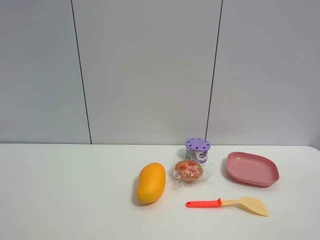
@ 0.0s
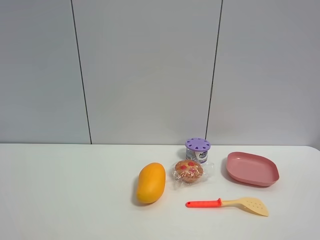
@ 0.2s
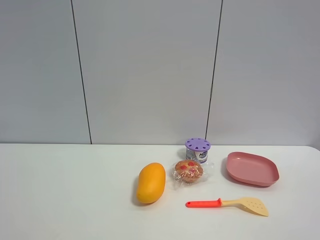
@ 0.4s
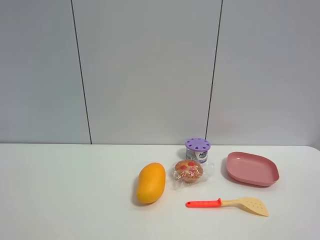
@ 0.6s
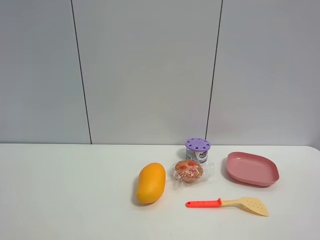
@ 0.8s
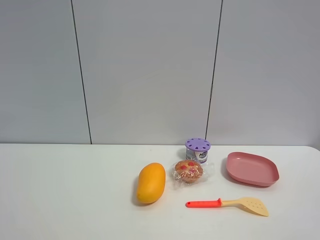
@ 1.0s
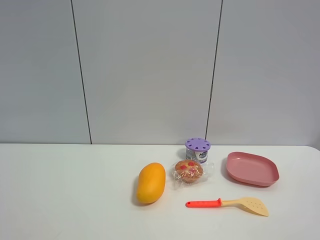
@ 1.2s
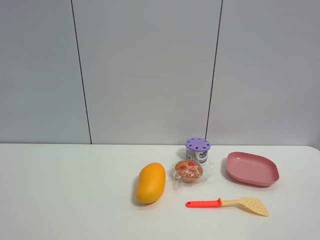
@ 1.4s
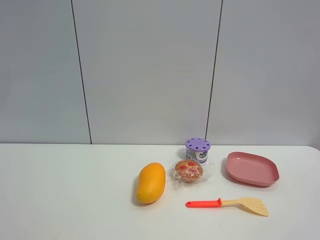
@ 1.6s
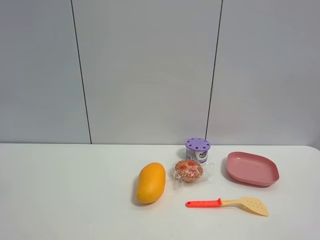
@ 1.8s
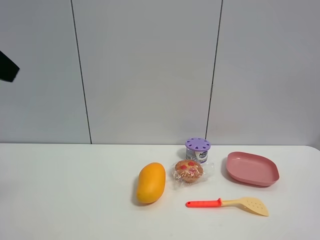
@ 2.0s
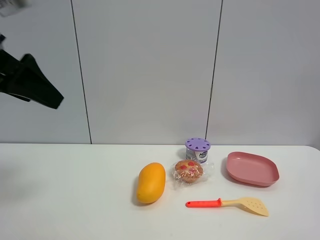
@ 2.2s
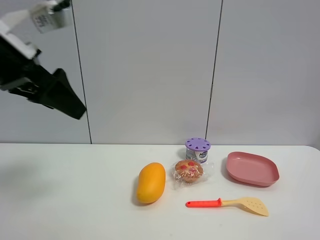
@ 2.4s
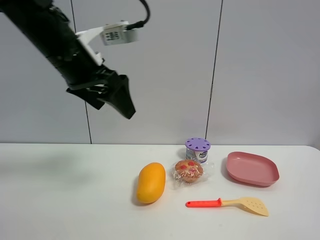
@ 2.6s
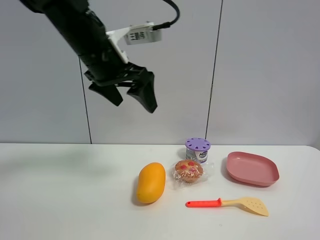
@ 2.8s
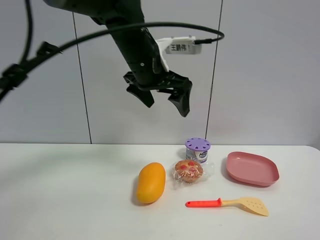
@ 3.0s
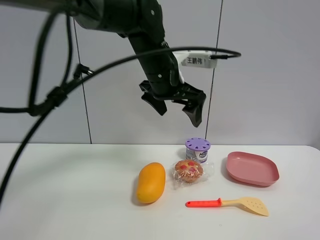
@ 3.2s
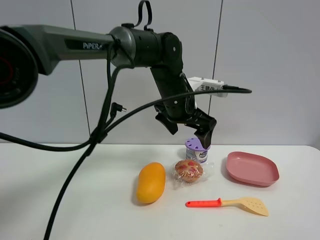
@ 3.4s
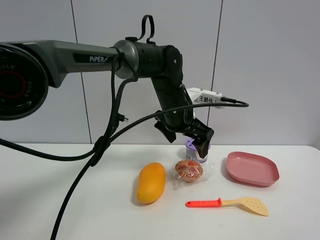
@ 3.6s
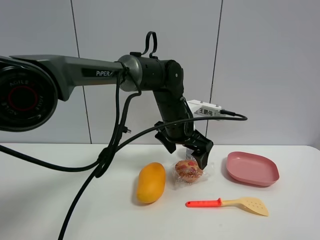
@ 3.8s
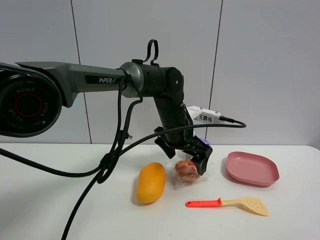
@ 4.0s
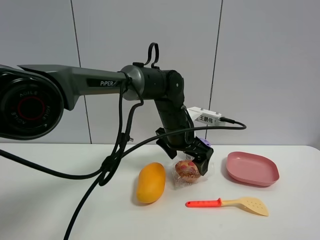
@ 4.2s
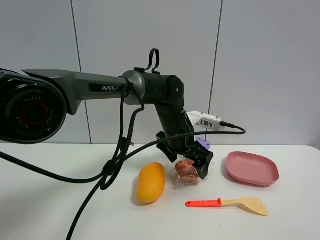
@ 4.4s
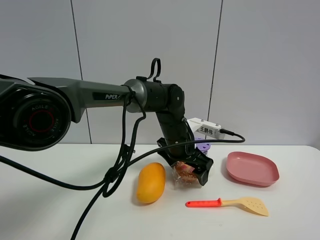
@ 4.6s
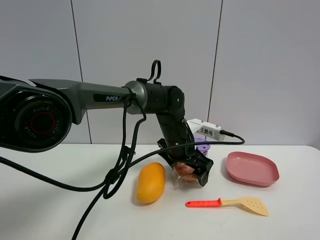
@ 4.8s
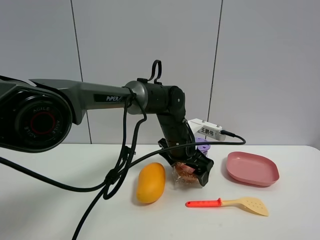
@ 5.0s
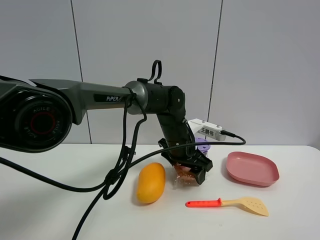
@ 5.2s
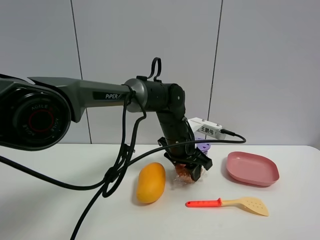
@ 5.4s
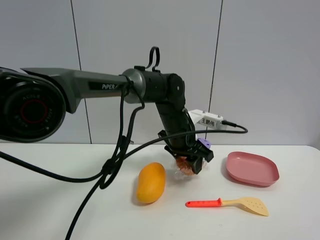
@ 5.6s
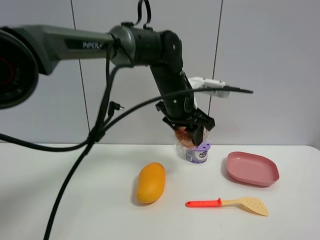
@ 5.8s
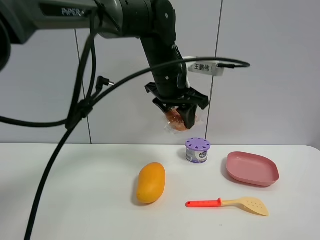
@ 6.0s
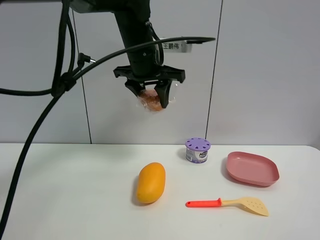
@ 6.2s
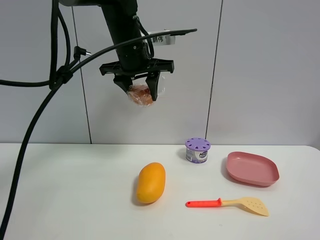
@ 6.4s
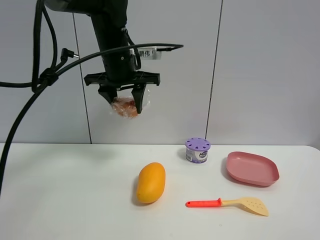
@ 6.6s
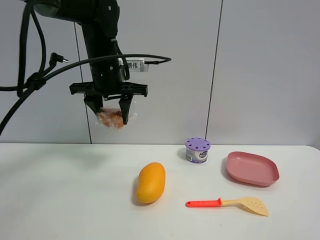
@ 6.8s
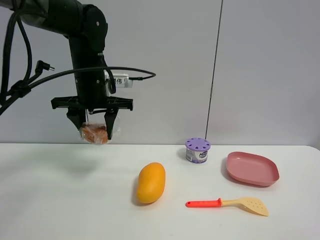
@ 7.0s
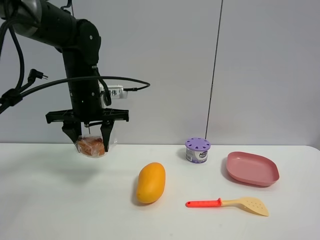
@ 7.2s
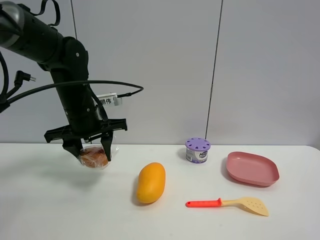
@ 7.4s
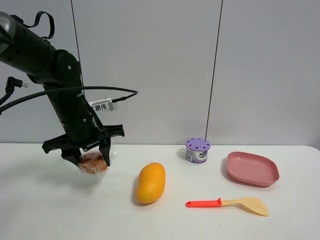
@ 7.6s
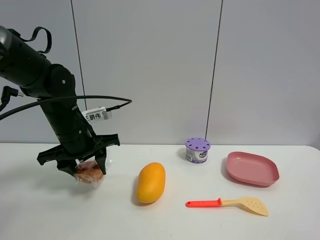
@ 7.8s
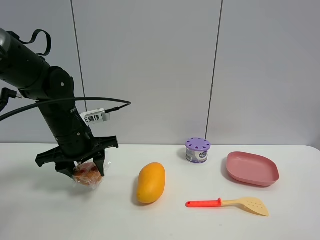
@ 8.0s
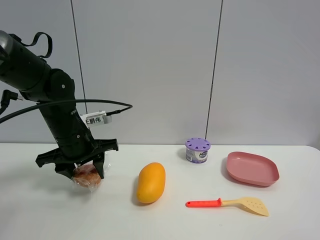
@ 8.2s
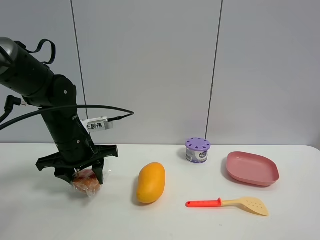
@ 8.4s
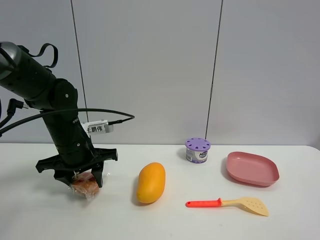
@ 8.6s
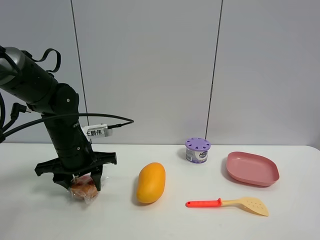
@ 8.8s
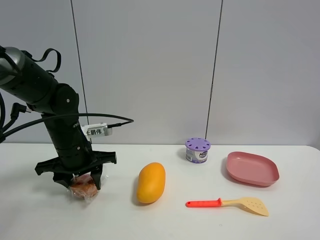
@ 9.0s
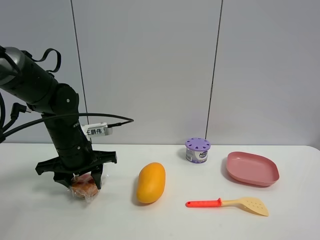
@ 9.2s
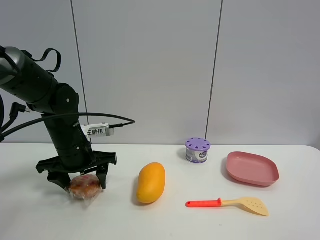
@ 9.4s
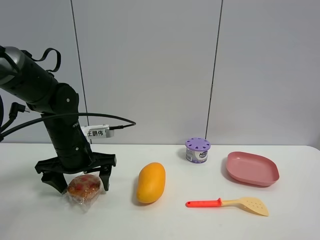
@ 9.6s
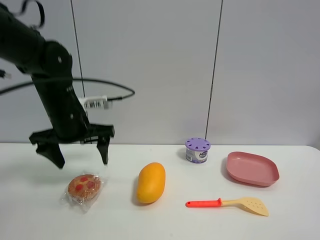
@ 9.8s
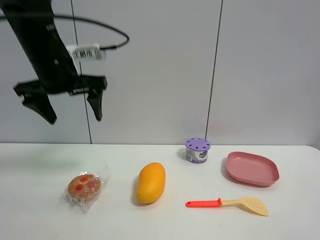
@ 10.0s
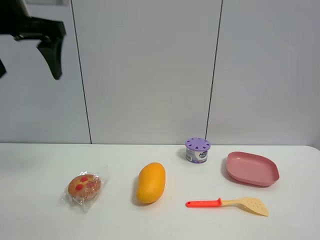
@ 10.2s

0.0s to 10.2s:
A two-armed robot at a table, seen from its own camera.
Task of the whole recording: the gripper move the object.
Step, 0.0s to 5.2s: Grasp the egg tart with the left gripper.
Step, 5.4s to 9.6s: Place the egg tart on the table with the left gripper.
1.4s to 3.0s: The left gripper goes some 40 cm forward and to the right.
3.0s to 4.4s: The left gripper travels downward and to the right by roughly 15 cm.
4.4s to 5.8s: The left gripper heads upward, covering some 10 cm, and closes up.
5.8s to 7.2s: The left gripper shifts about 15 cm to the left.
7.2s to 8.8s: The left gripper travels downward by about 10 cm.
8.8s to 10.2s: The left gripper goes some 25 cm upward, and opens.

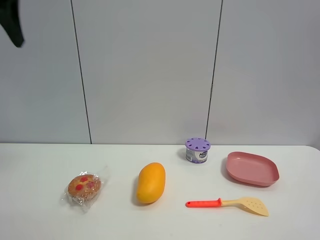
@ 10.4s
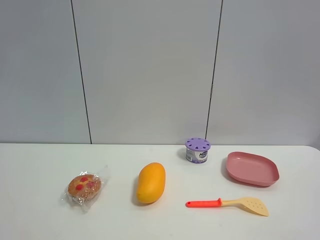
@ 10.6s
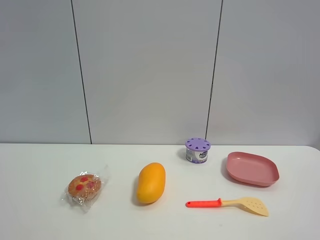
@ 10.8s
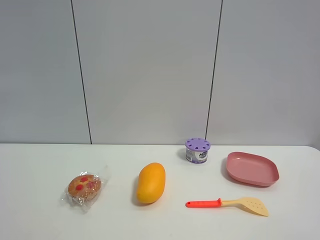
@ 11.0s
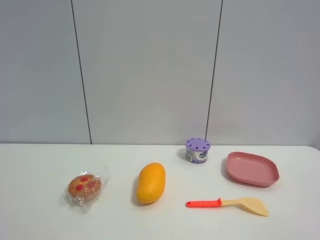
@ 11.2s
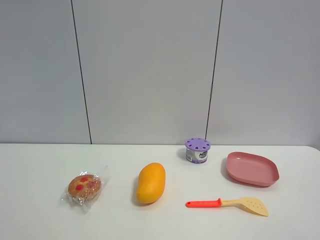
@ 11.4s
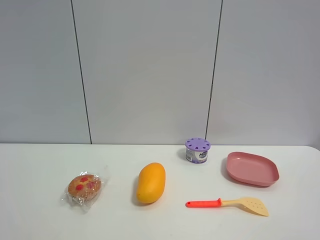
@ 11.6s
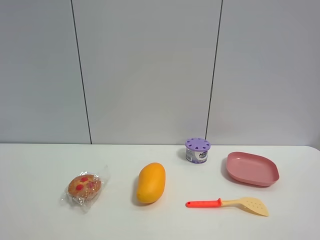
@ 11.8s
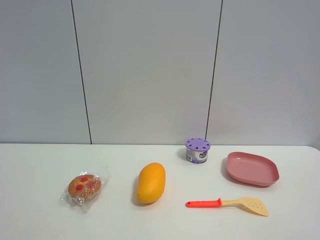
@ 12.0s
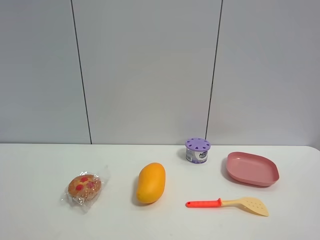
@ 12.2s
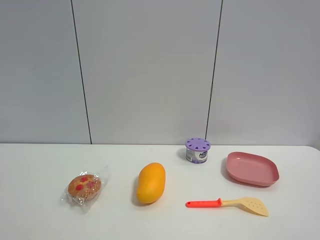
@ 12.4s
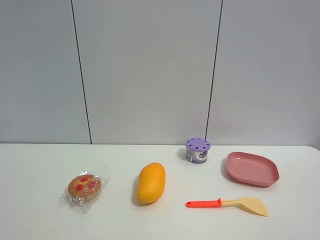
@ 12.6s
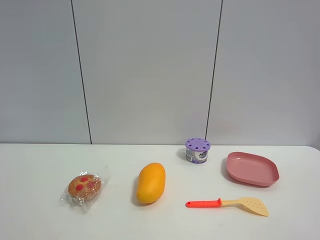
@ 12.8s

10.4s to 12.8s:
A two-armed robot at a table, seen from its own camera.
Task of the whole recording: the gripper move the object.
10.4s to 11.6s: The left gripper shifts about 30 cm backward.

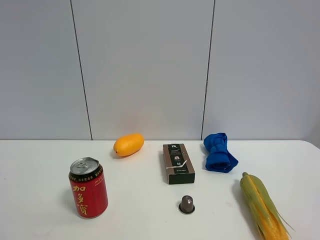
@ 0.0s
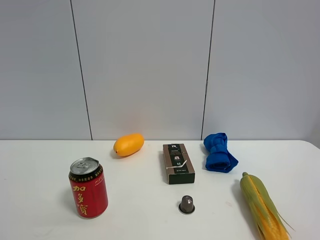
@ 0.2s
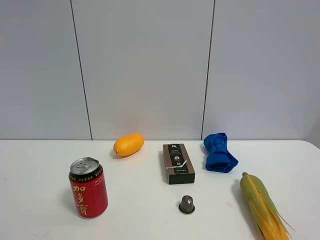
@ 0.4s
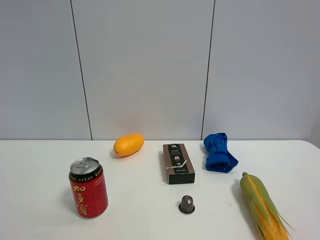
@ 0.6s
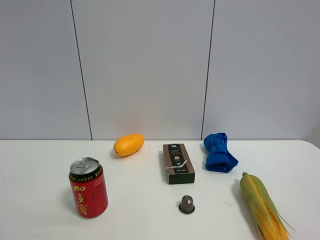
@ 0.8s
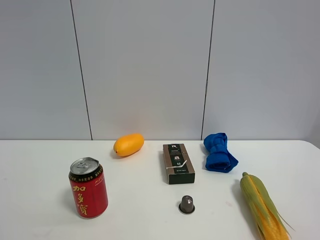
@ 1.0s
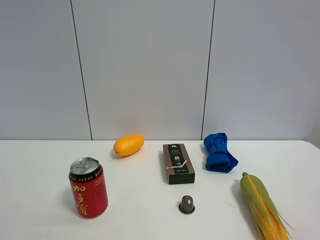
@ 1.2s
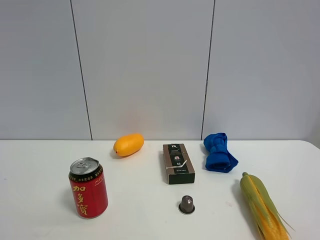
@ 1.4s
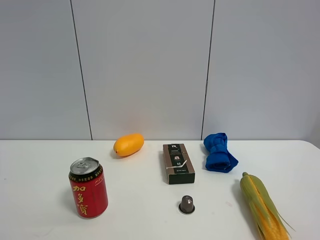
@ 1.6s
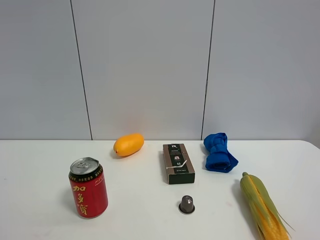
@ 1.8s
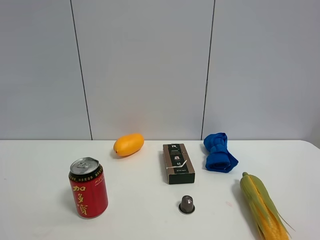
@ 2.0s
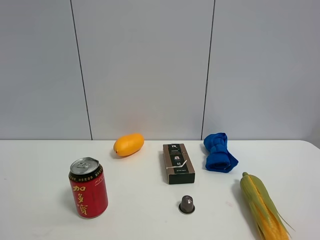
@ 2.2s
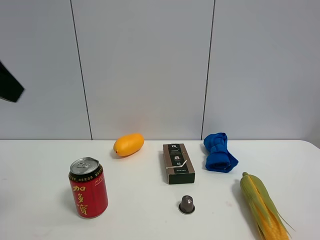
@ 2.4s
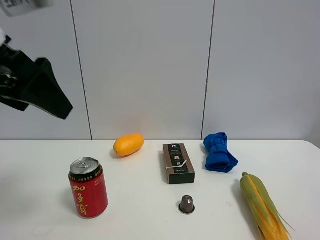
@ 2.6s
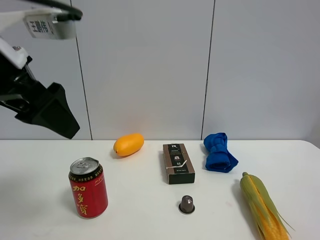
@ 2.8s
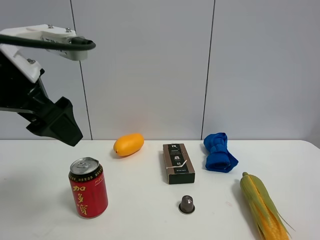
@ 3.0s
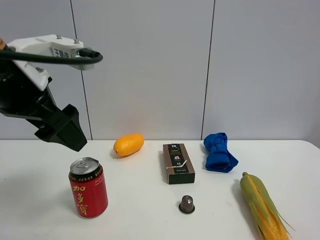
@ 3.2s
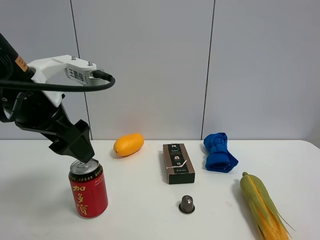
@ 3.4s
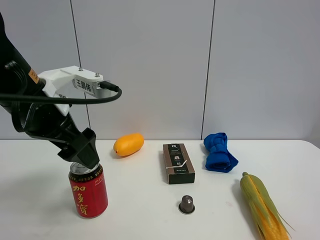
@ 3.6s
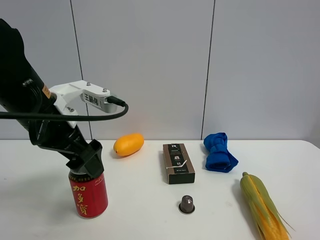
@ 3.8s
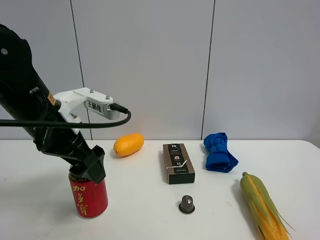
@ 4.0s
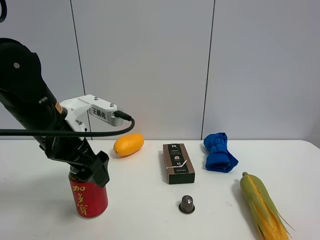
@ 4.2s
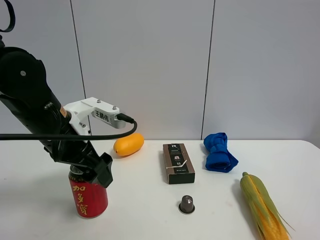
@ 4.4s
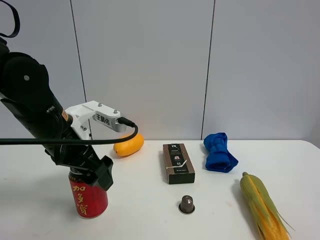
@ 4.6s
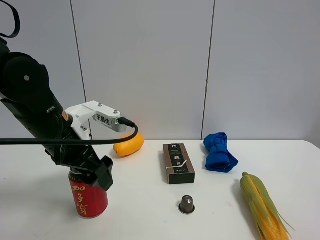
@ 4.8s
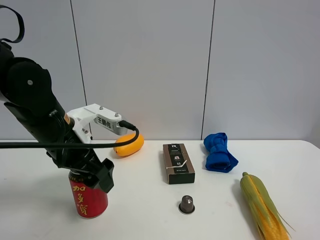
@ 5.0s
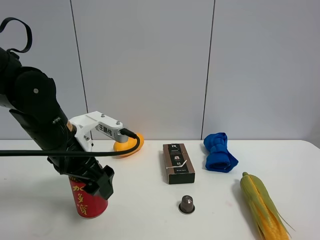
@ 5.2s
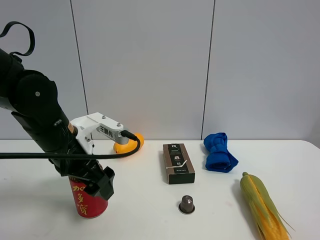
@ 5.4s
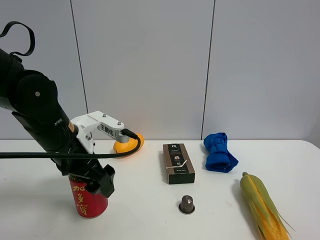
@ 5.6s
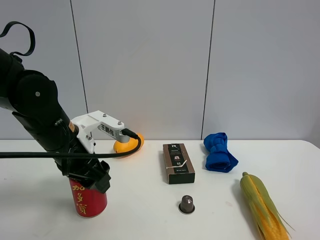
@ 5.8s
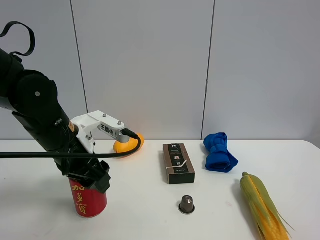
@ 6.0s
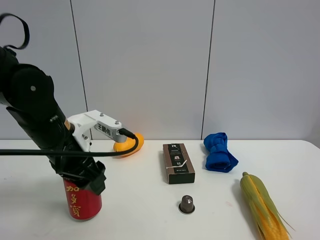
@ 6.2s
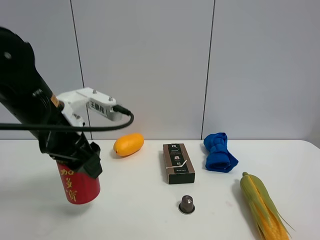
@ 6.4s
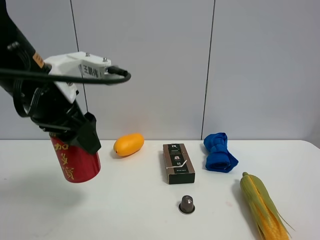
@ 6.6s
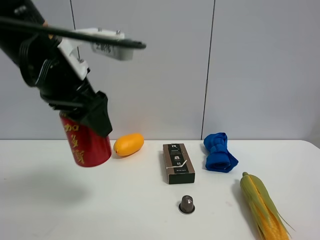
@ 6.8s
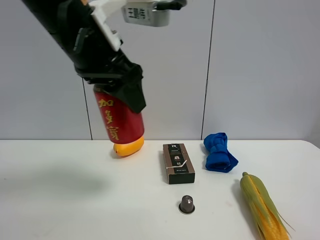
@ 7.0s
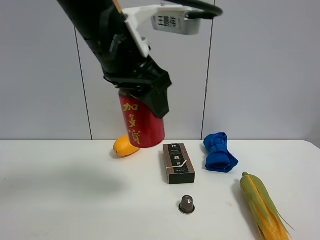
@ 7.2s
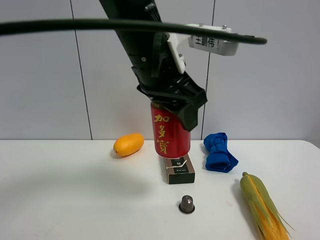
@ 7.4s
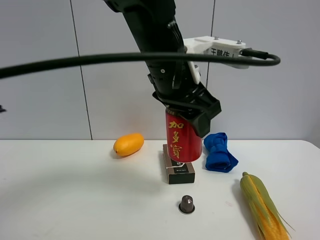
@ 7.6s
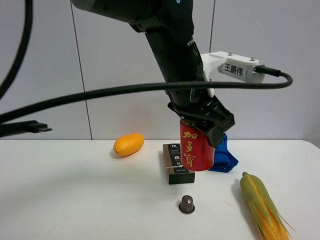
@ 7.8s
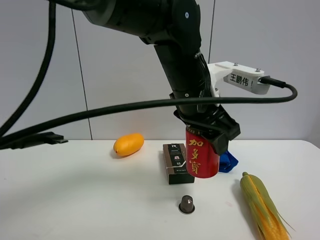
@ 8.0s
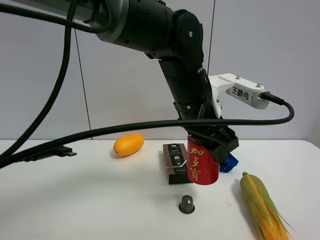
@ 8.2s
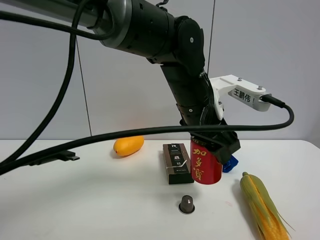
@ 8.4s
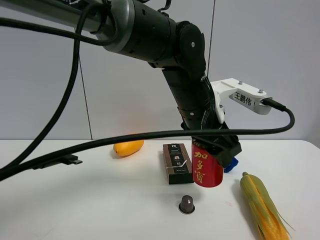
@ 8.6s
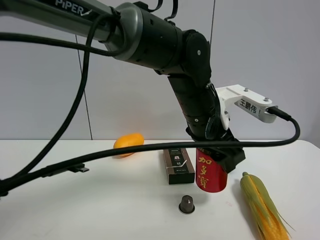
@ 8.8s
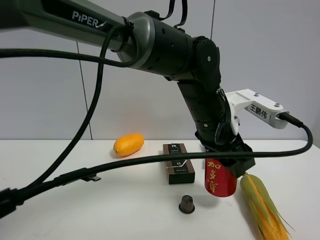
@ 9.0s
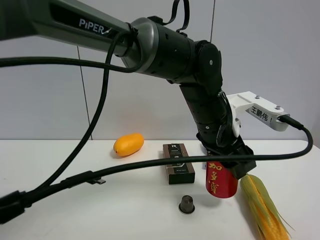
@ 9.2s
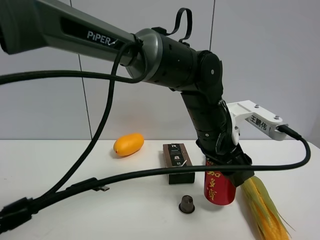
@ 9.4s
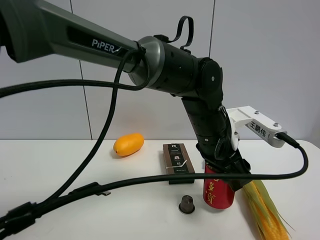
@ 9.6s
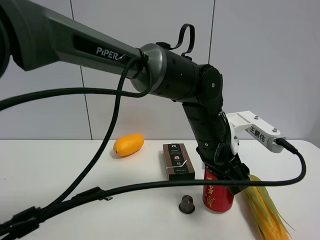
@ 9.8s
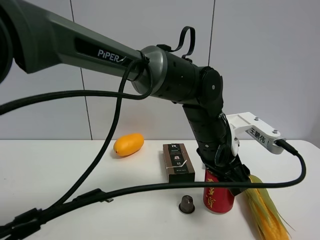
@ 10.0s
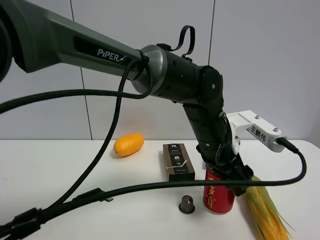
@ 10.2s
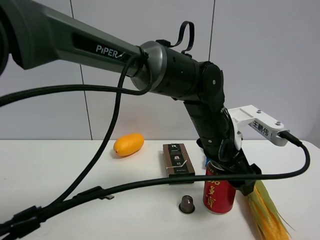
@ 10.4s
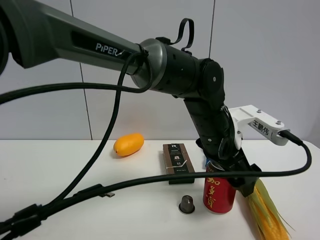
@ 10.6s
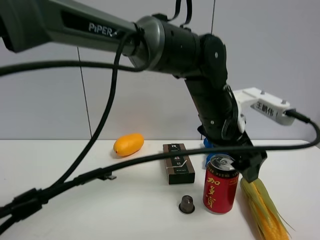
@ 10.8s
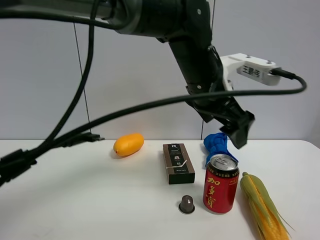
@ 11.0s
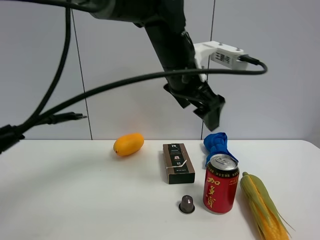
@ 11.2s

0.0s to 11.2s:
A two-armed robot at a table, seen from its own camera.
Task of the whole recording: the gripper move the object.
Step, 0.0s to 5.8s: Grasp the Jia Duo Bao with the left gripper.
Step, 6.0s to 10.8s: Place the Jia Duo Bao on the table with the left gripper.
1.6s to 3.2s: The left gripper goes about 25 cm forward and to the right.
3.2s to 4.8s: The left gripper shifts approximately 10 cm downward.
4.8s to 6.4s: The left gripper closes its fingers.
6.4s to 8.0s: The left gripper travels to the right by approximately 20 cm.
8.0s to 9.6s: The left gripper goes about 10 cm downward.
9.6s to 11.2s: The left gripper moves upward and to the left, about 10 cm, and opens.
